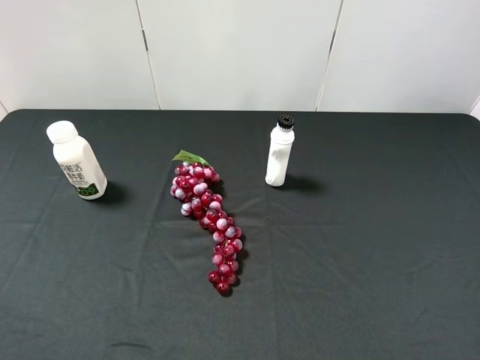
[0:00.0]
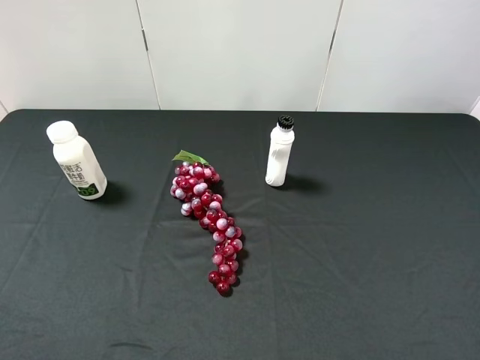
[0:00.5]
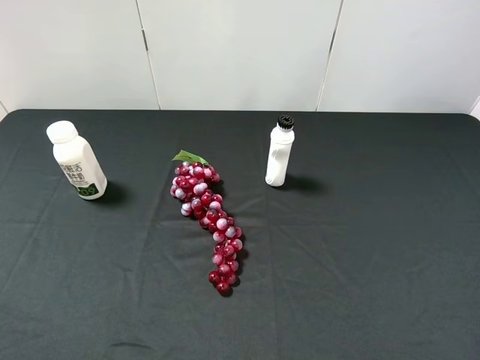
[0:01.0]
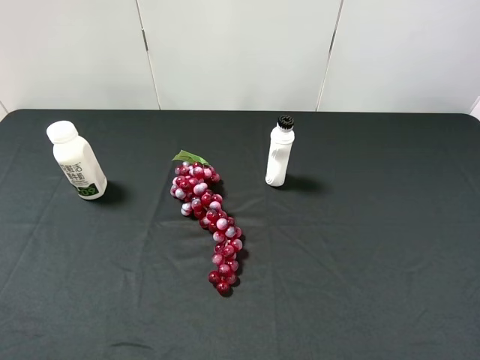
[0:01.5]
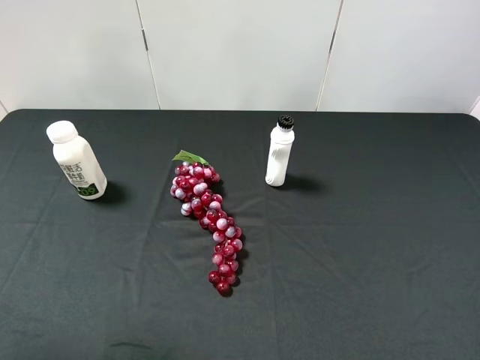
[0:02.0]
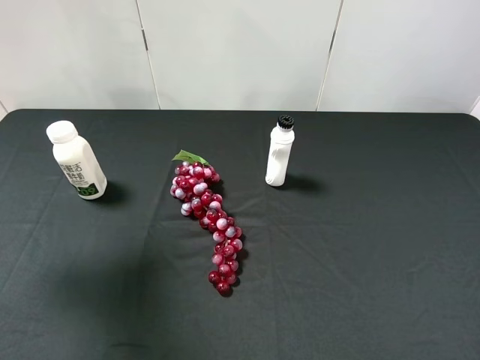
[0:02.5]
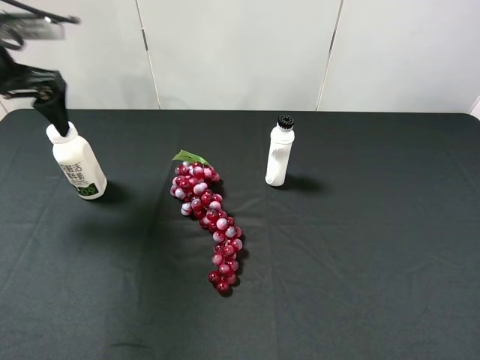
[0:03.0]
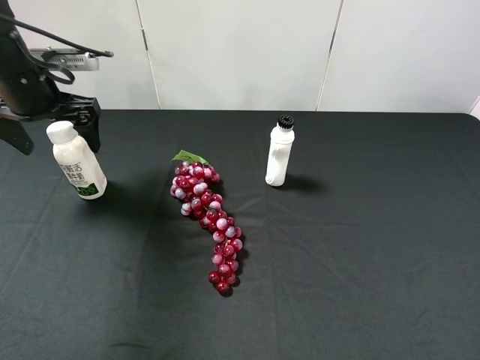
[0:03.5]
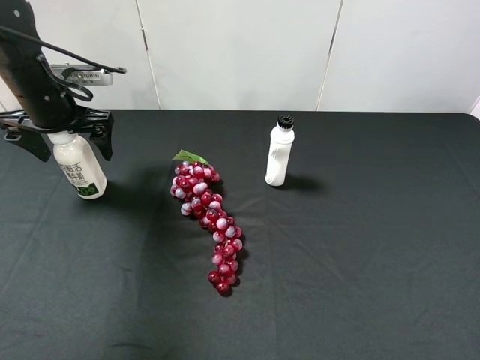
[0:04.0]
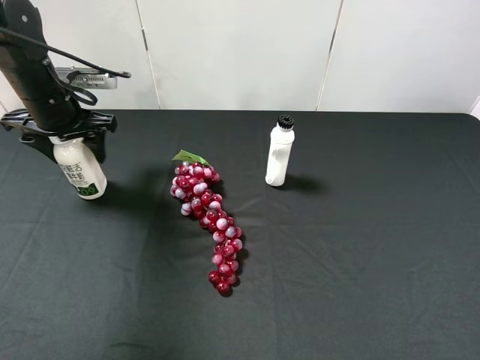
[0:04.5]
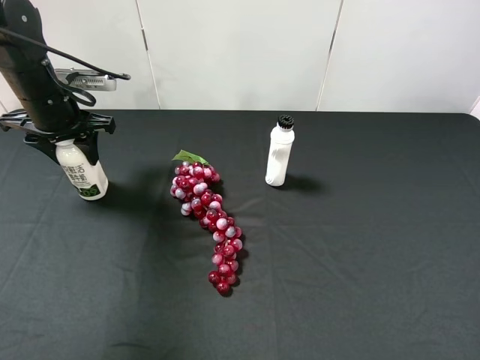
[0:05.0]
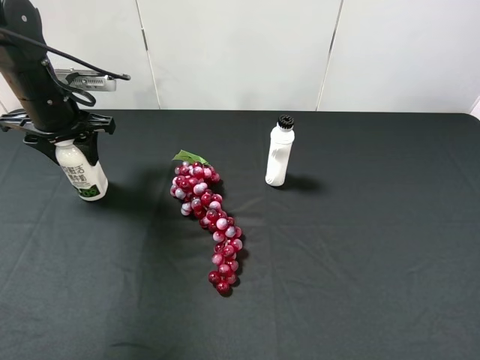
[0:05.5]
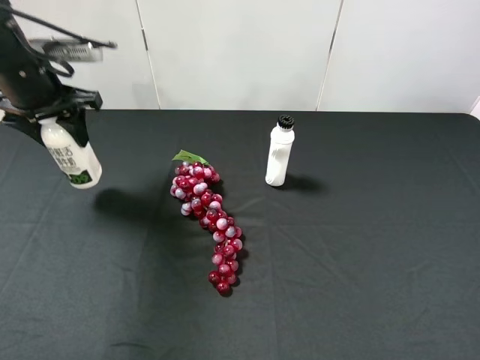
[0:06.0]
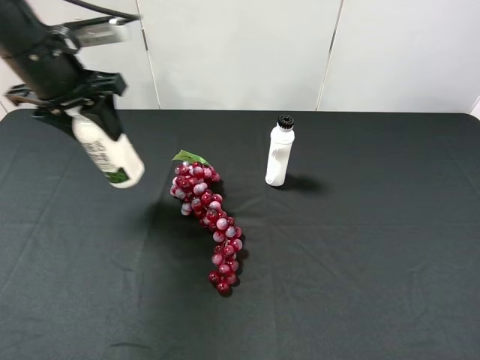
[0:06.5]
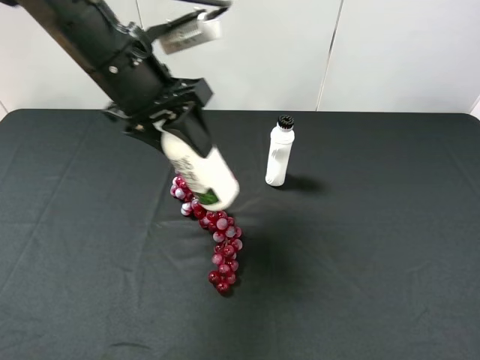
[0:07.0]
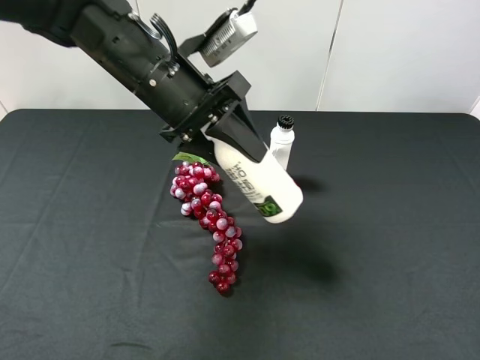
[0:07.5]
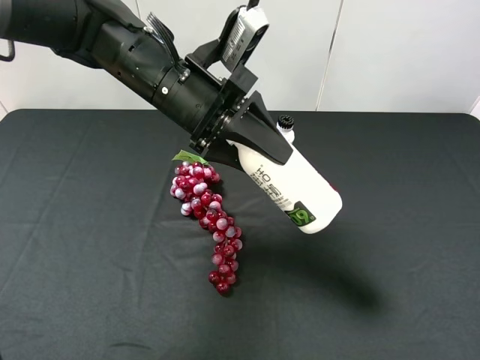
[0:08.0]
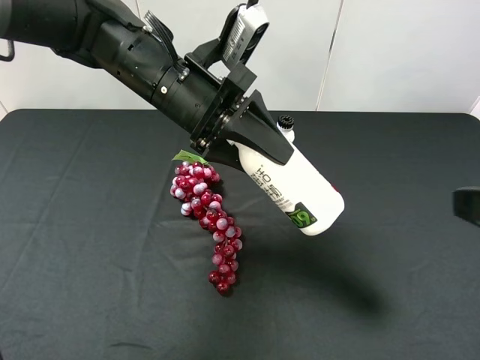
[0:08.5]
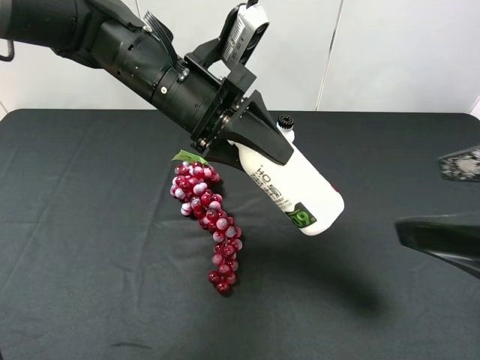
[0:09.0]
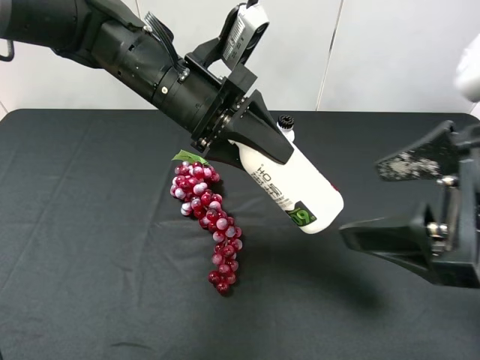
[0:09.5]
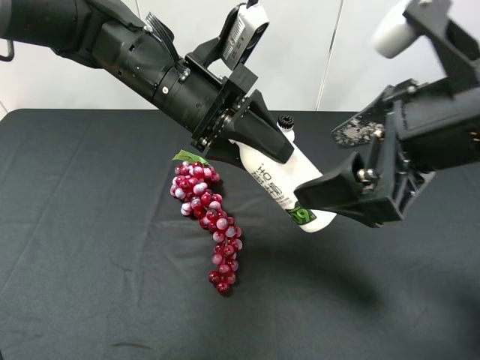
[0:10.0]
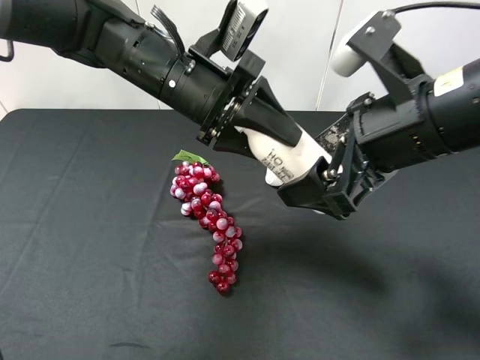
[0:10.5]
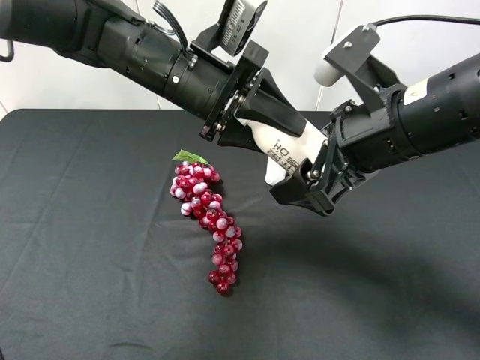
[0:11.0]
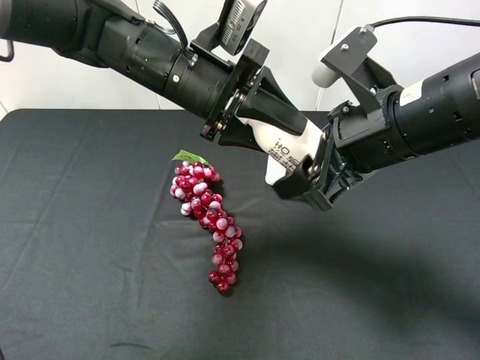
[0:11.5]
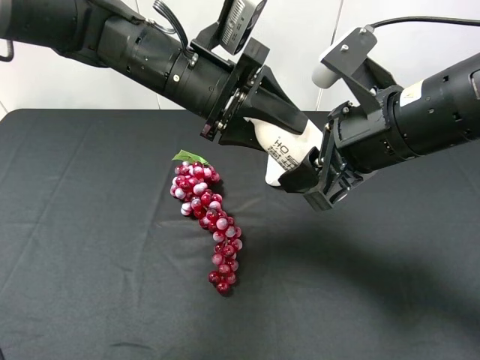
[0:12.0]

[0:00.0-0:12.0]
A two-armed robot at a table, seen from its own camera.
Task of the whole recording: use the left gripper to pick up the item and transfer it from the left gripper to the right gripper.
0:02.0 to 0:04.0: The left gripper travels forward and downward by about 30 cm.
0:04.0 to 0:06.0: The left gripper moves upward, some 5 cm, and closes up.
0:06.0 to 0:08.0: The left gripper travels to the right by roughly 20 cm.
0:08.0 to 0:10.0: The right gripper moves forward and to the left, some 20 cm.
0:10.0 to 0:12.0: The right gripper ends up about 5 cm from where it was, and closes up.

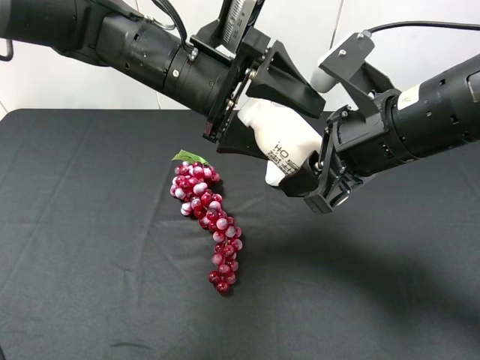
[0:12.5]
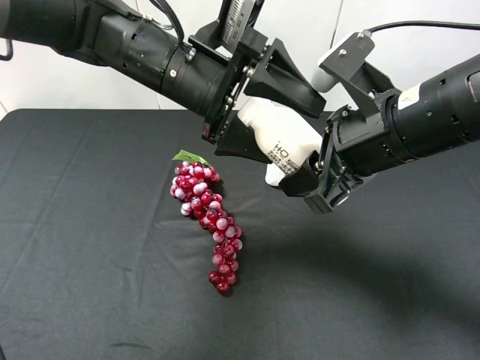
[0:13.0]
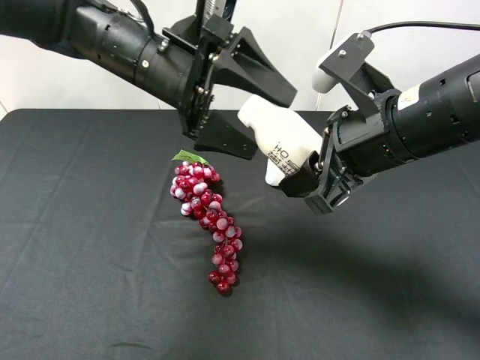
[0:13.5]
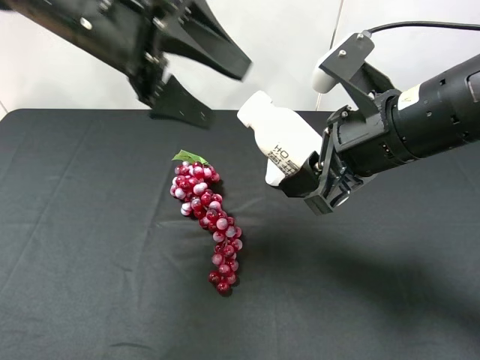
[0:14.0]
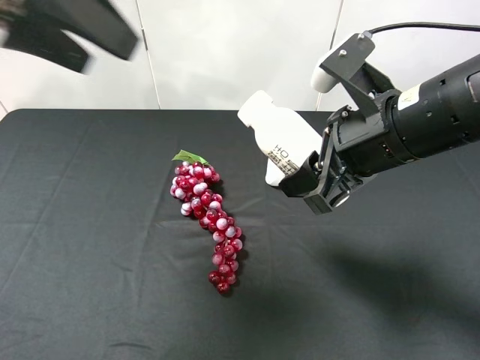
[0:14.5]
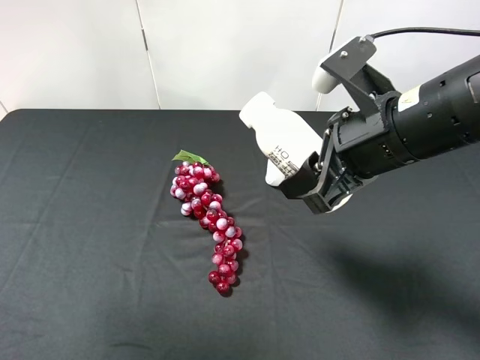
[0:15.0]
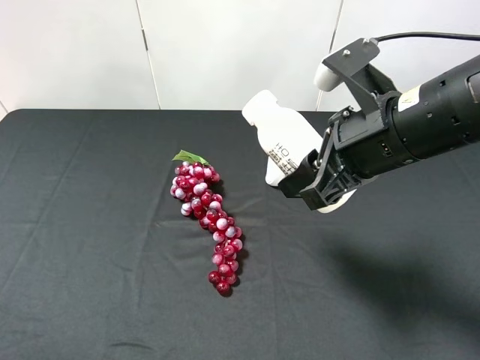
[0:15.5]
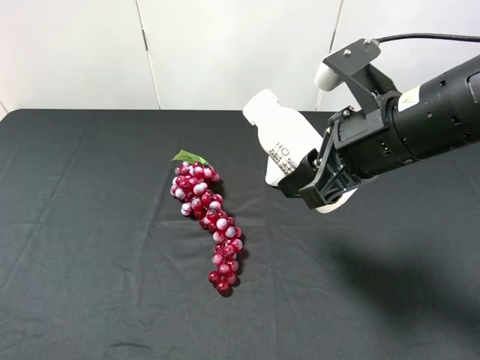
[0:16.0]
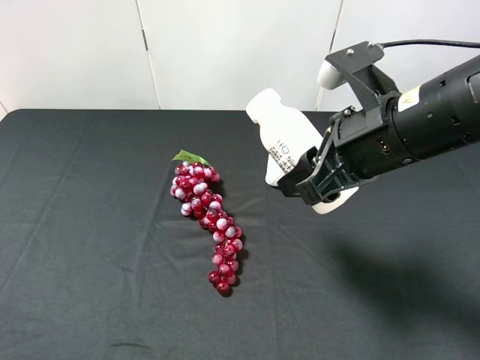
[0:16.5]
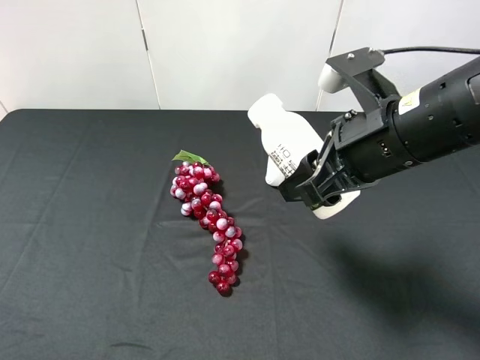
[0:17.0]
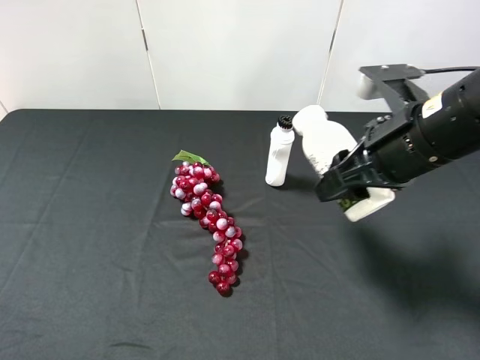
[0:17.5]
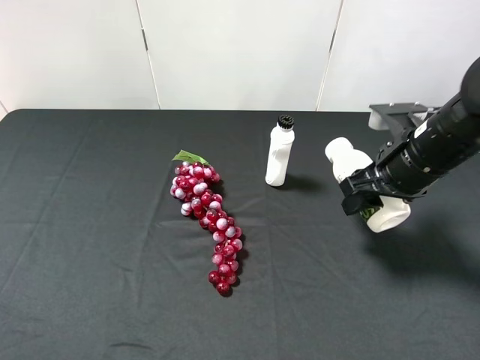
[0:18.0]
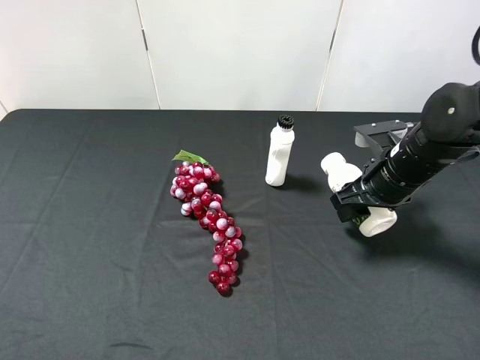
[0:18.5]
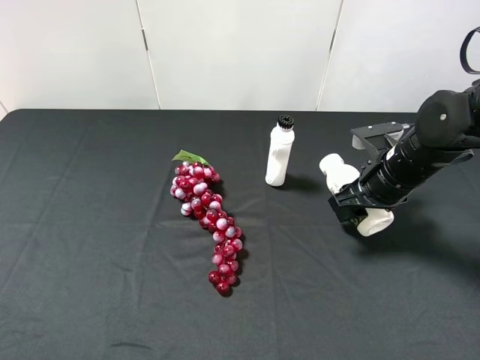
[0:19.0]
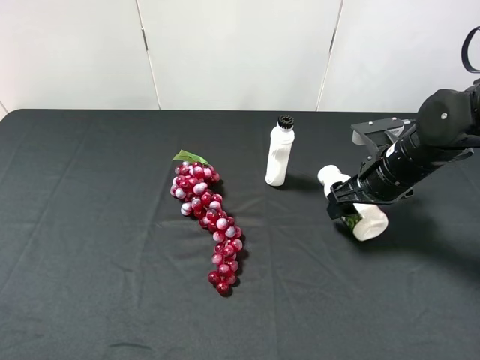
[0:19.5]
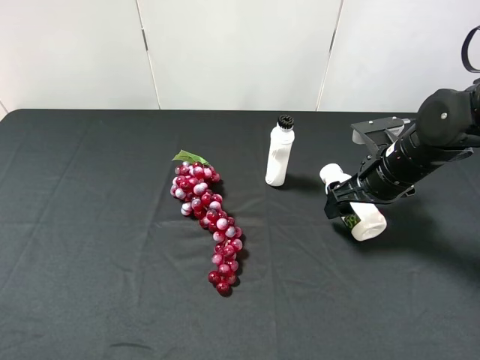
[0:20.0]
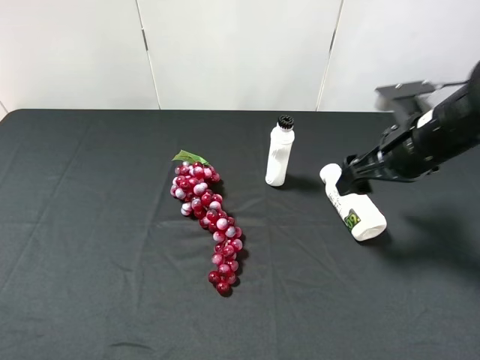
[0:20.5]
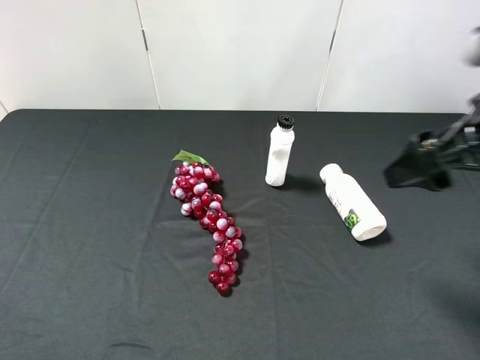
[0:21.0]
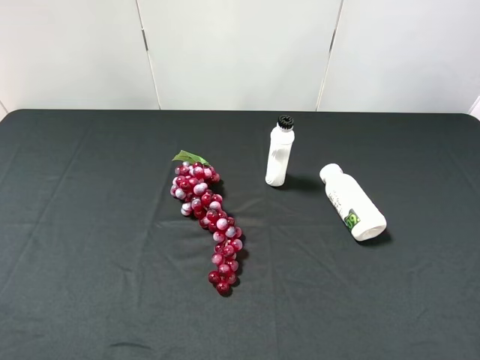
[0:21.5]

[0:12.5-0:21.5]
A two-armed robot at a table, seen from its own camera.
Task of the whole recording: use the left gripper to pick up the item and transfer it from the left gripper to the right gripper.
0:12.5 to 0:14.5: The left gripper travels to the left, upward and backward by about 20 cm.
0:14.5 to 0:17.0: The left gripper goes roughly 30 cm backward, downward and to the left.
0:17.0 to 0:19.5: The right gripper shifts about 15 cm downward, forward and to the right, and opens up.
0:19.5 to 0:21.5: The right gripper heads backward and upward, covering approximately 30 cm.

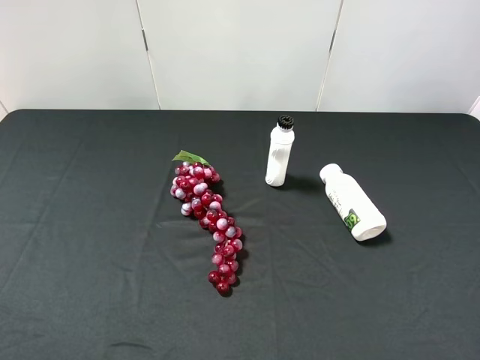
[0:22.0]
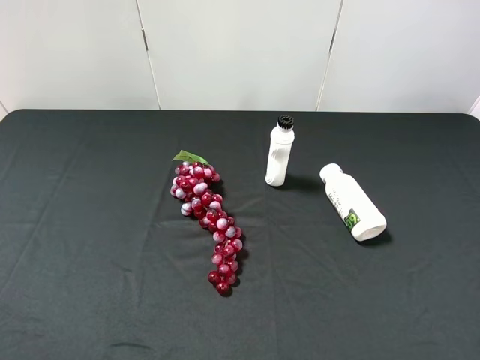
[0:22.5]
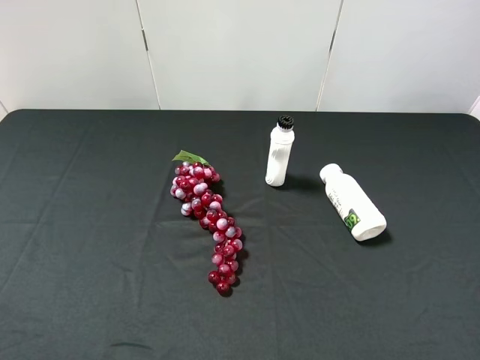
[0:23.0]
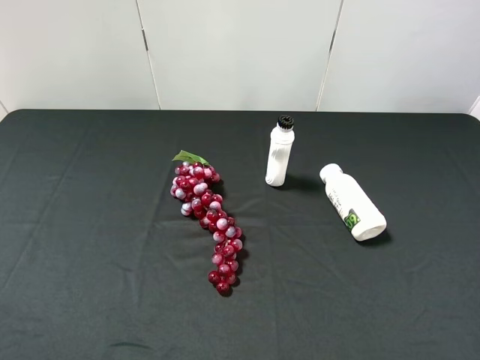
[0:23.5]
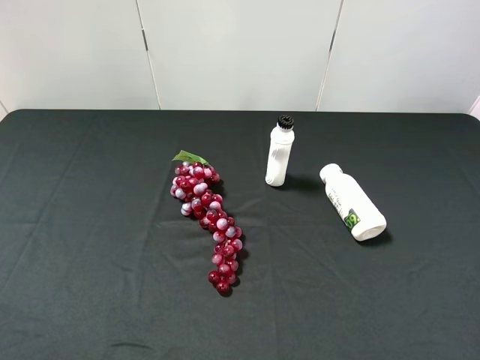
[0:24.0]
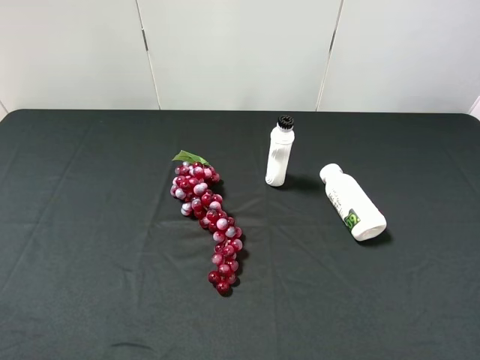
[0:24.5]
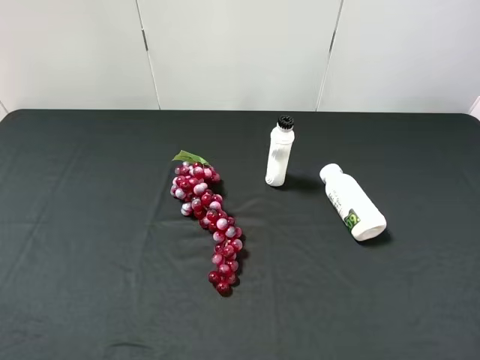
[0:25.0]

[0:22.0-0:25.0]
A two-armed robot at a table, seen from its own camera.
Task of the whole recording: use the left gripper to pick up the item and transfer it from the left gripper to the right gripper.
0:23.5 to 0:25.0: Neither gripper changes place.
